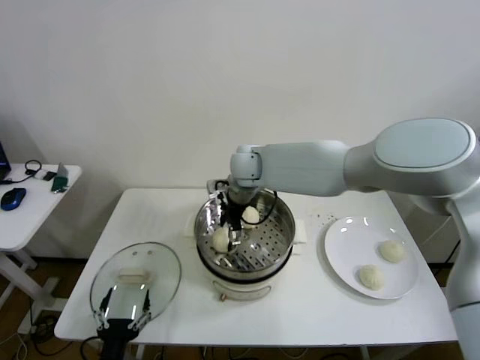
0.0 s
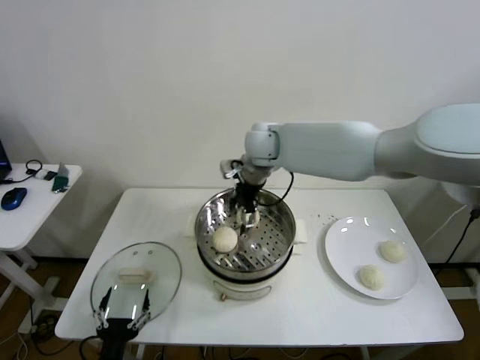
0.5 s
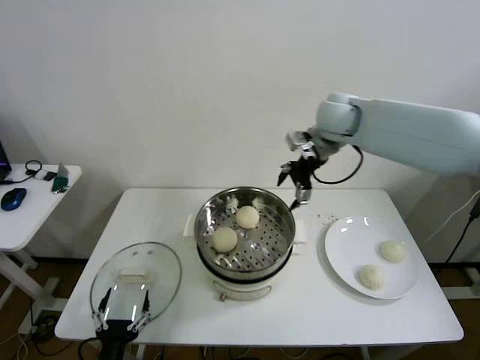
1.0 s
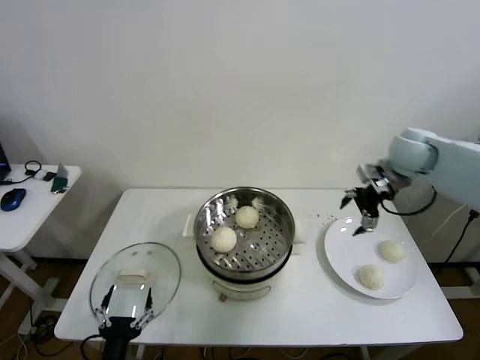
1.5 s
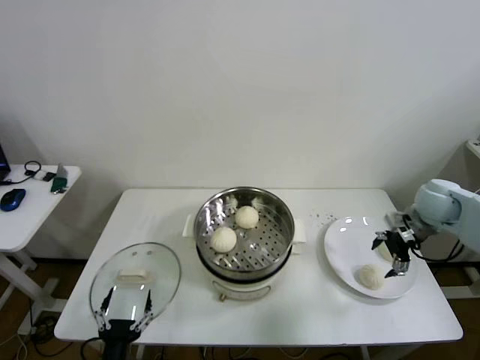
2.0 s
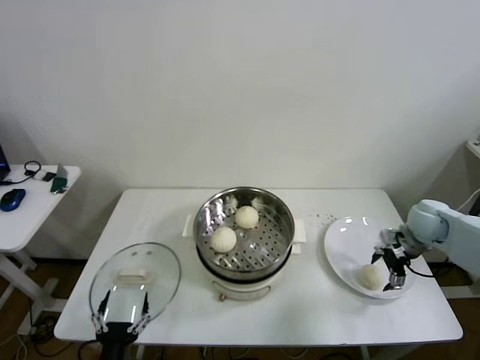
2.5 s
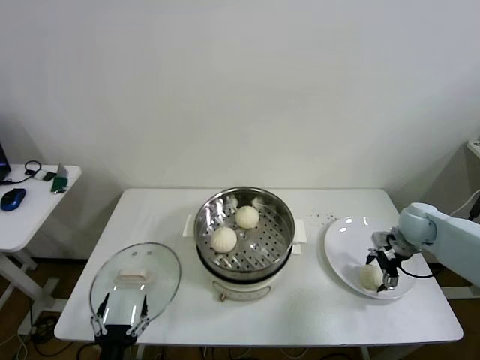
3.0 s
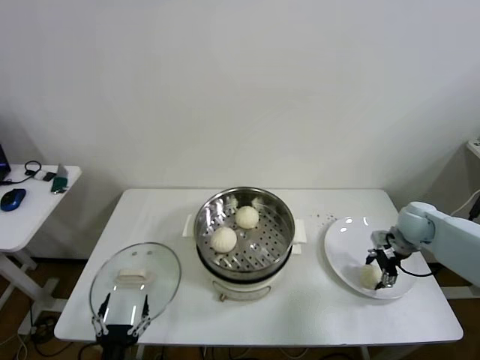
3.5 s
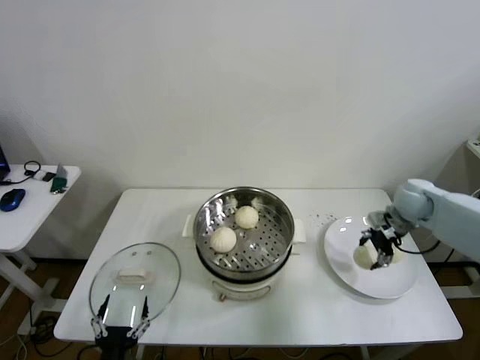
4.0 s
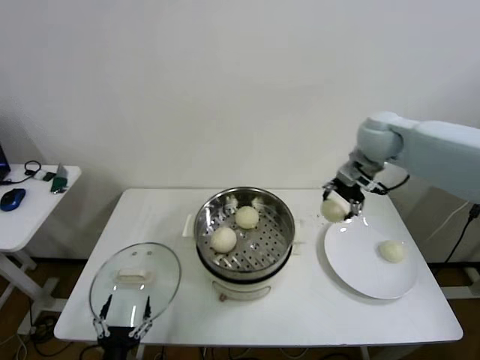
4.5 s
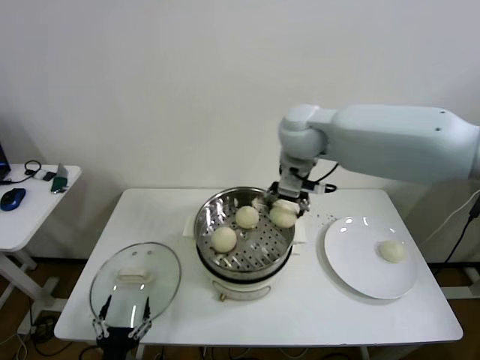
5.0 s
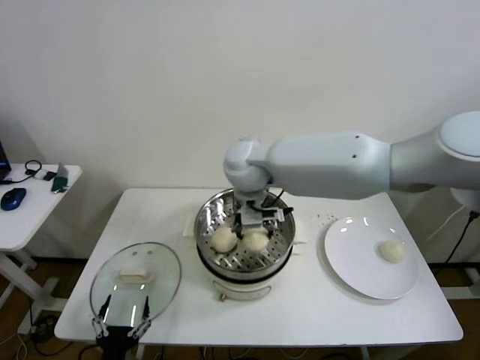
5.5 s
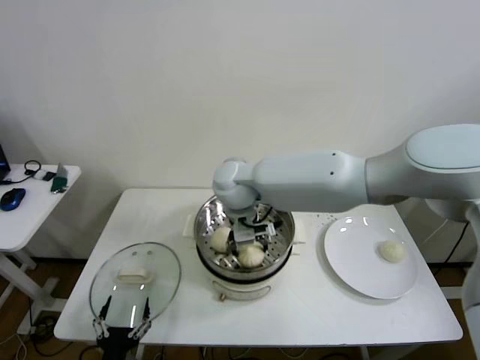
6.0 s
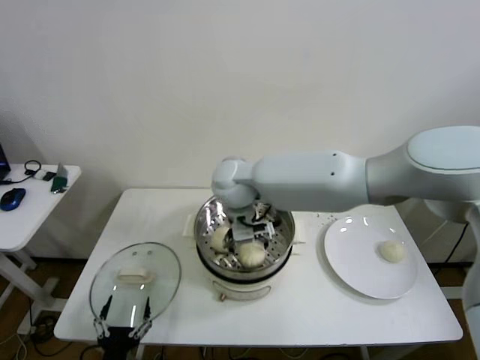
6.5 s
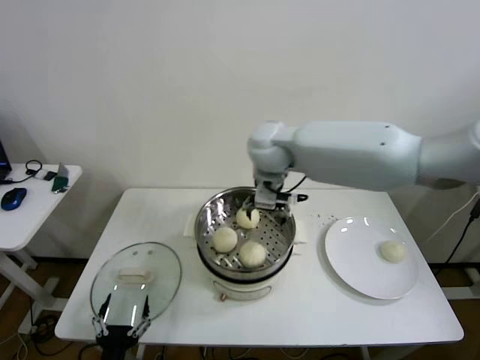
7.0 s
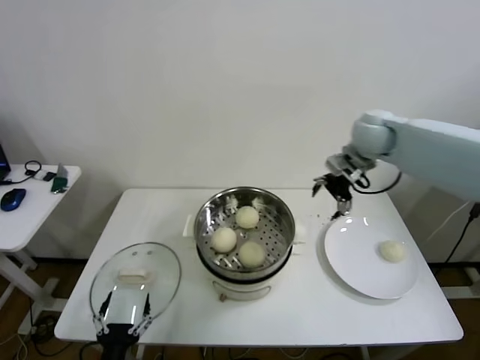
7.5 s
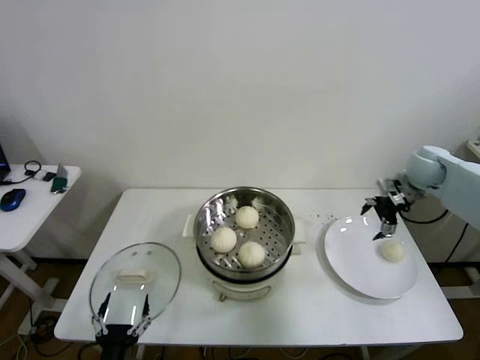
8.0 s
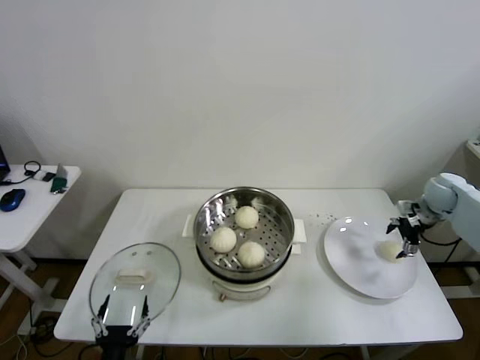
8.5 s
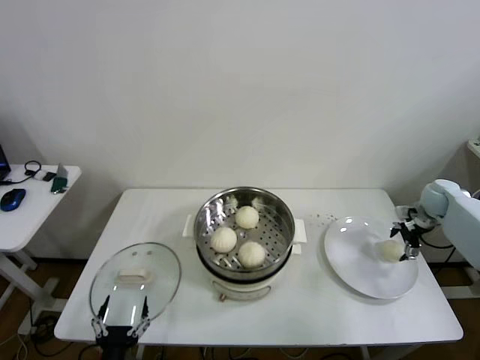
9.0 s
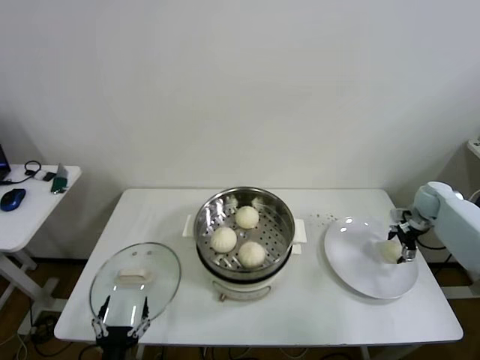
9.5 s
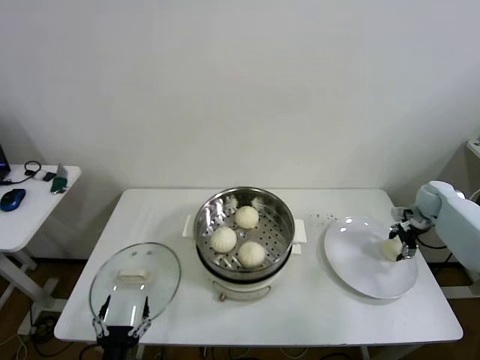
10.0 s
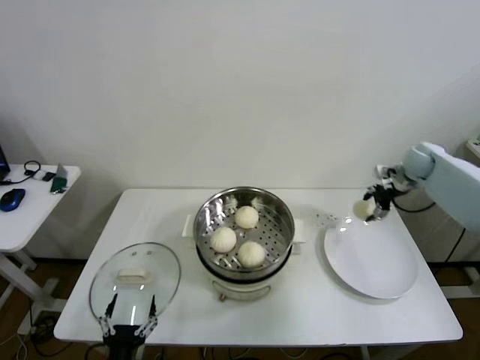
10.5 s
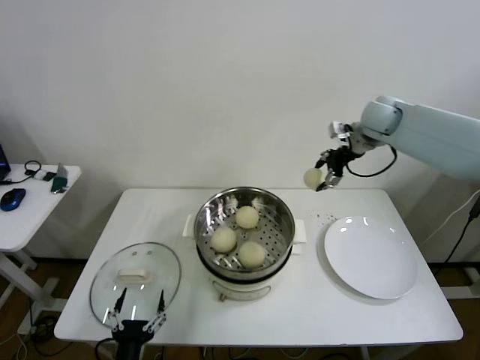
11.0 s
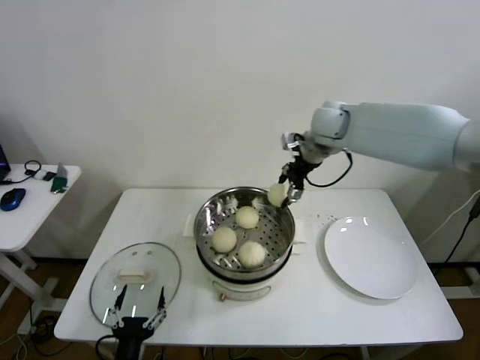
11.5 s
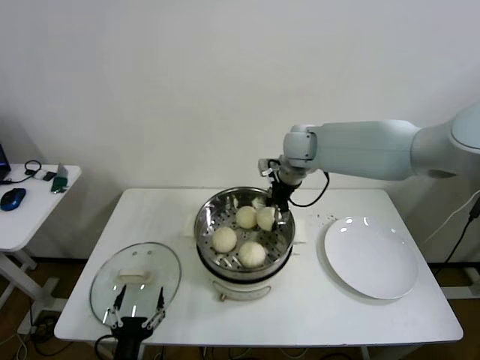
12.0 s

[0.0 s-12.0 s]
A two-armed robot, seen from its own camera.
Step, 0.5 to 3.0 s: Grasp the baozi in the plate with right gripper.
Step, 3.5 to 6.0 s: Place the baozi on the steamer with right gripper.
Step, 6.5 to 9.5 s: Grasp the baozi in the plate with right gripper.
0.0 to 2.0 s: The right gripper heads to the right, covering roughly 40 cm.
2.0 to 4.0 s: The right gripper moves about 10 cm downward and comes back.
4.0 to 6.0 s: The right gripper is displaced to the left by some 40 cm.
6.0 to 8.0 s: The right gripper is displaced to the right by some 50 cm.
8.0 to 10.0 s: The right gripper goes approximately 15 cm downward and to the right.
10.0 to 12.0 s: The right gripper goes about 40 cm to the left and upward.

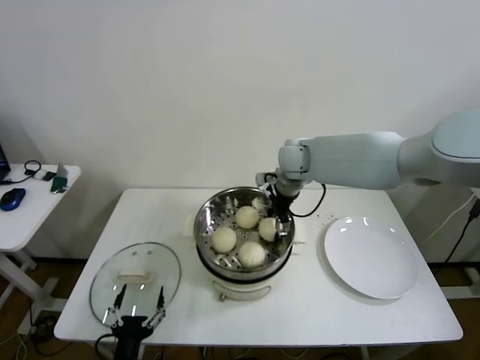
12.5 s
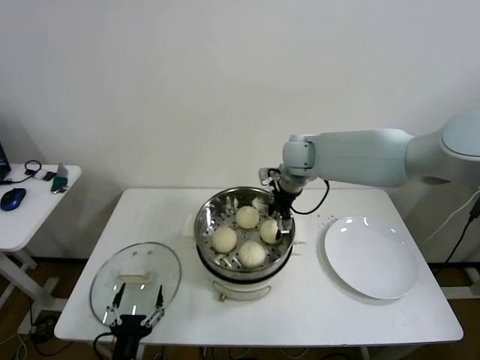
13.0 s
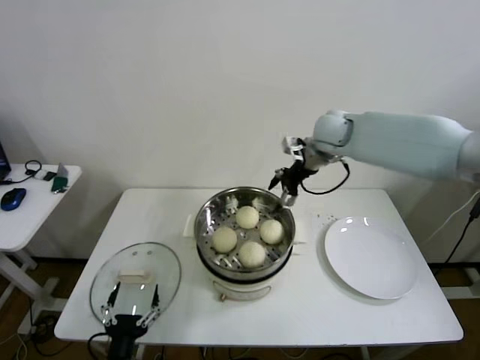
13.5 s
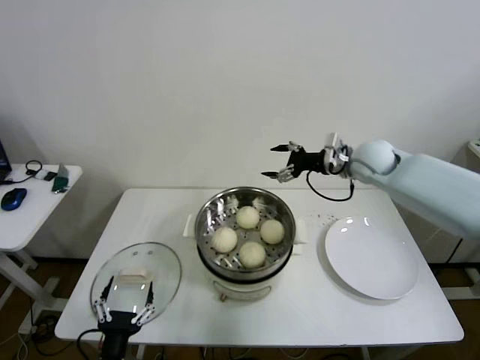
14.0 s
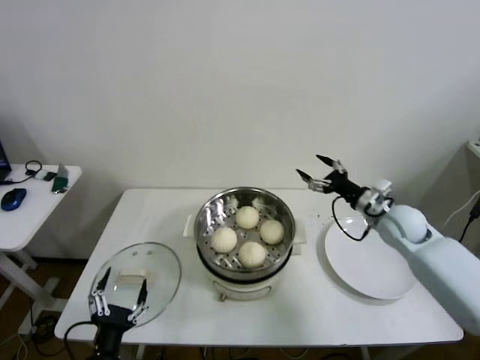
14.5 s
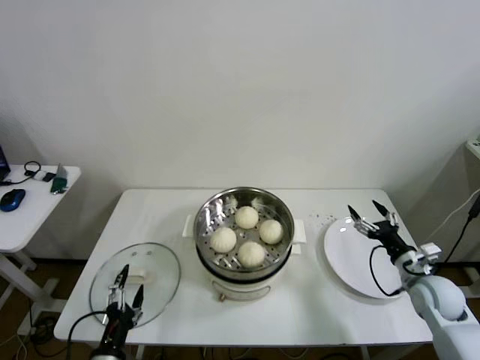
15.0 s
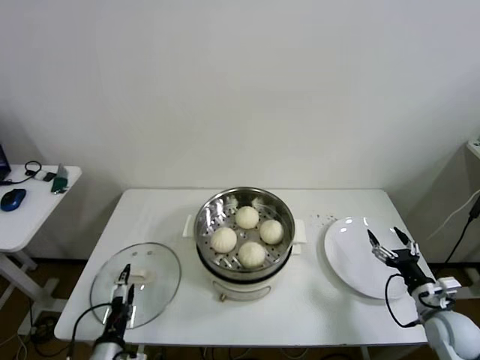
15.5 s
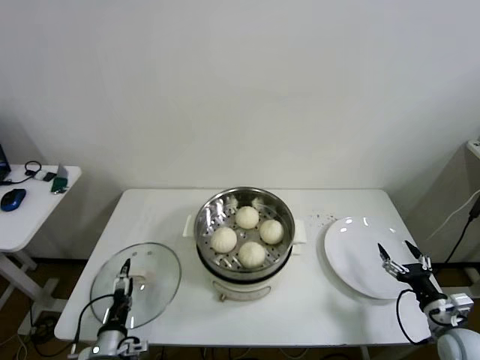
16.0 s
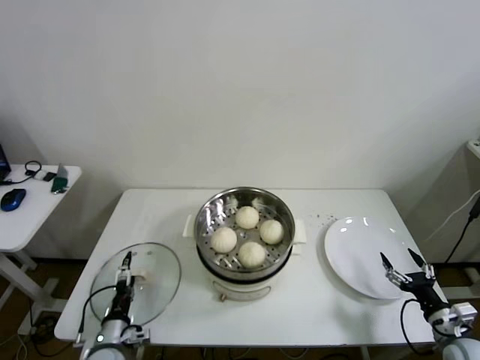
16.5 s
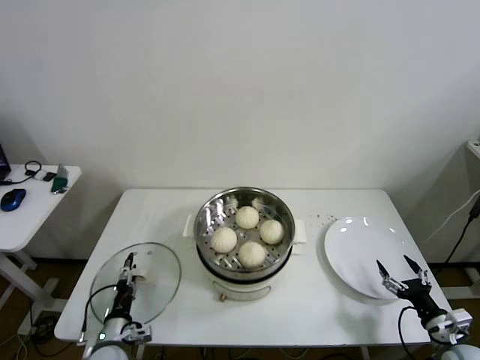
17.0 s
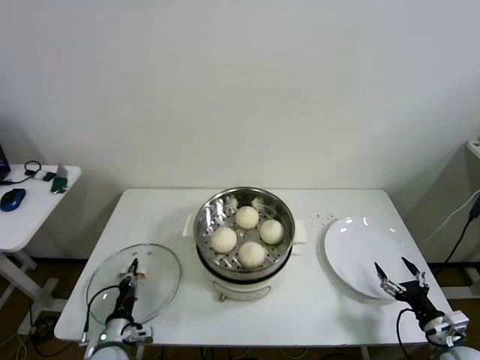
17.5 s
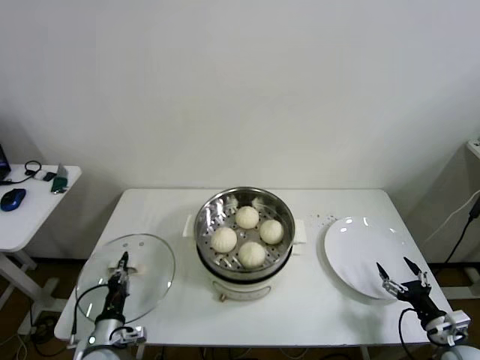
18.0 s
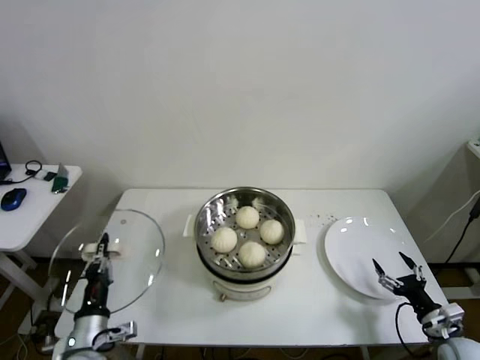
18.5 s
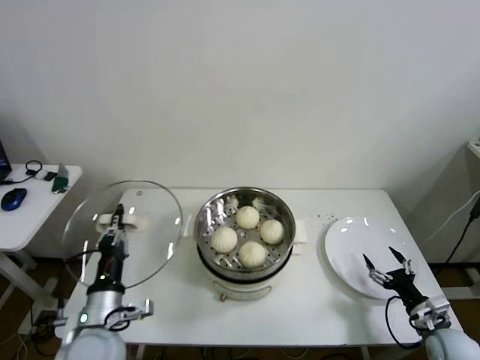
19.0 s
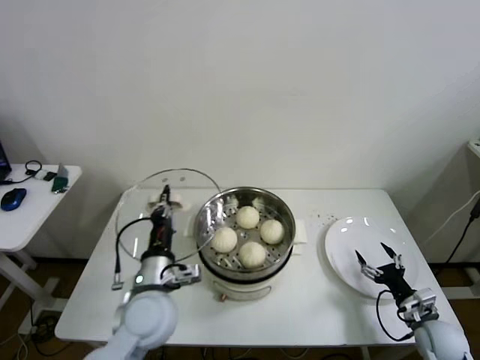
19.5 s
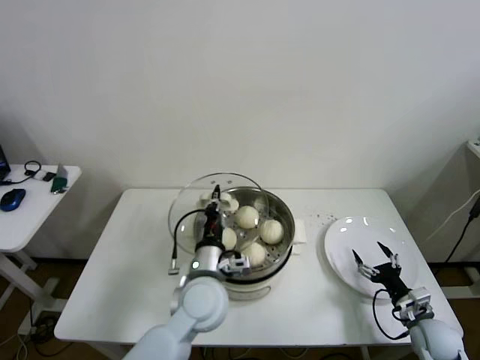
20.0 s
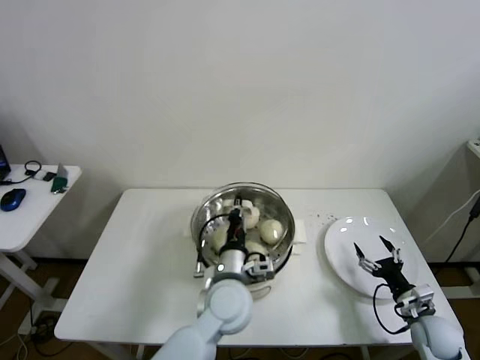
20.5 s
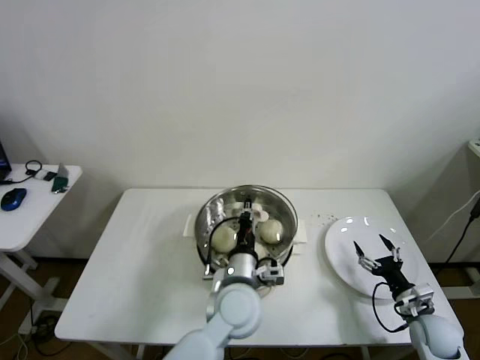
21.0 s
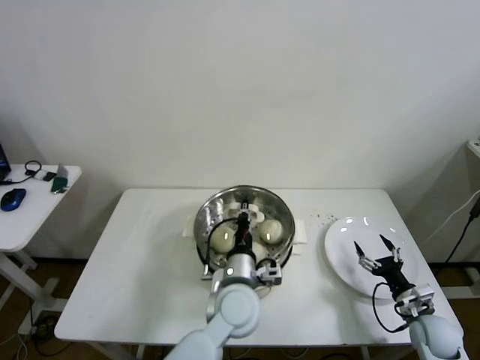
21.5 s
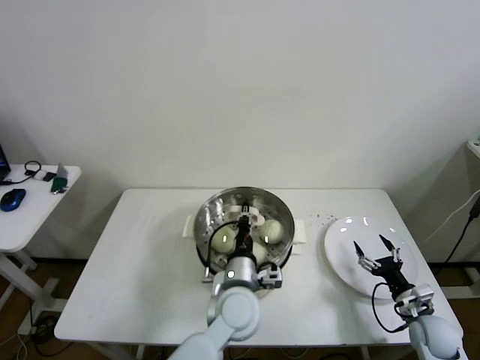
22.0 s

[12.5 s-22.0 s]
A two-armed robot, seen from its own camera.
Step, 13.0 to 17.0 s: Grasp the pot lid with left gripper.
12.5 to 14.5 s: The right gripper heads to the right, downward and backward, covering about 30 cm.
14.5 to 16.5 s: The left gripper goes about 15 cm forward, downward and to the left; the right gripper goes roughly 30 cm backward, downward and to the right.
16.5 to 18.0 s: The left gripper closes.
18.0 to 20.0 s: The left gripper heads to the right and upward, covering some 30 cm; the right gripper shifts approximately 5 cm forward.
20.0 to 22.0 s: The left gripper is displaced to the right by roughly 5 cm.

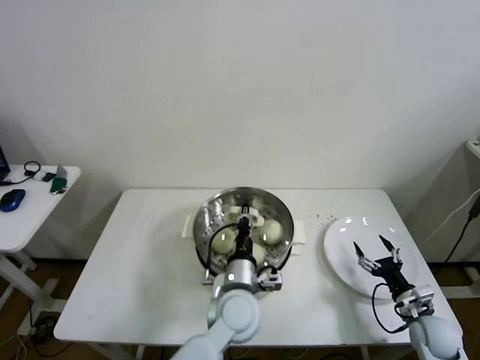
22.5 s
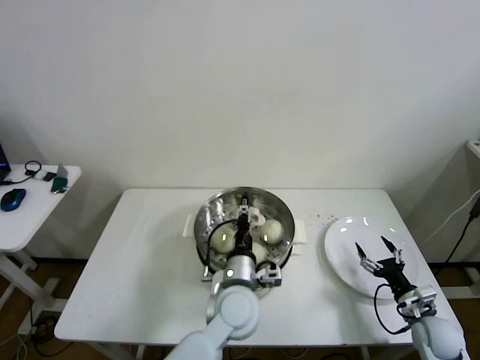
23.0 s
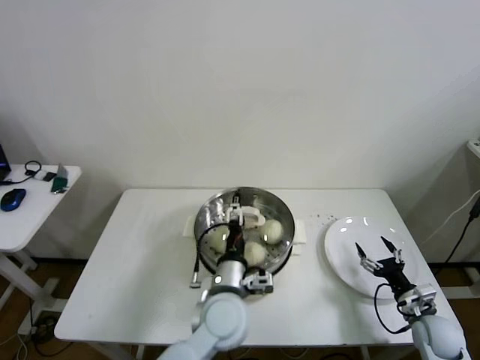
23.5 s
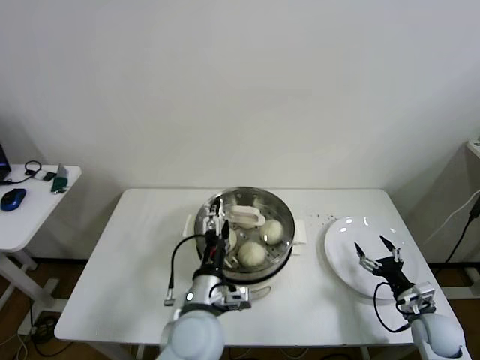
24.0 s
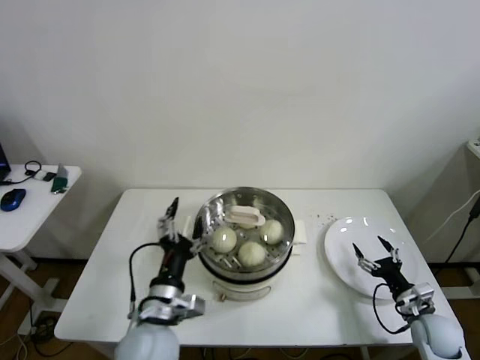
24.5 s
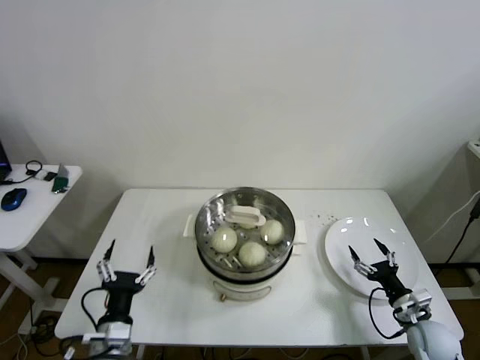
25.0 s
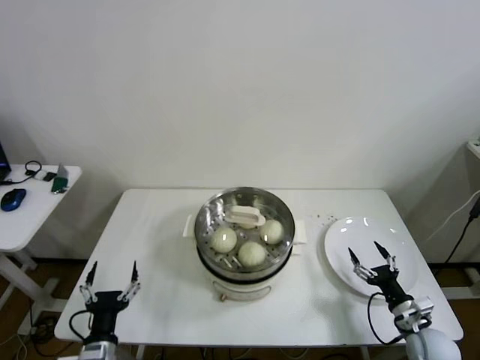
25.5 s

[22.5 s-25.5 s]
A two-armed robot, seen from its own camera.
22.5 to 24.0 s: The left gripper is displaced to the left by about 5 cm, and opens up.
24.0 to 25.5 s: The left gripper goes some 25 cm to the left, downward and backward.
